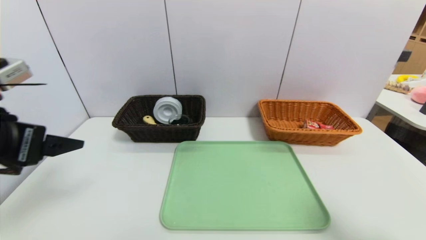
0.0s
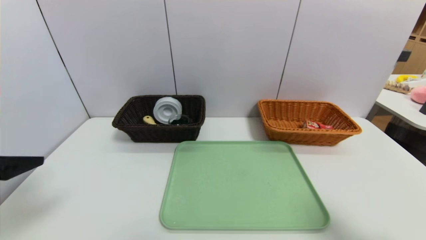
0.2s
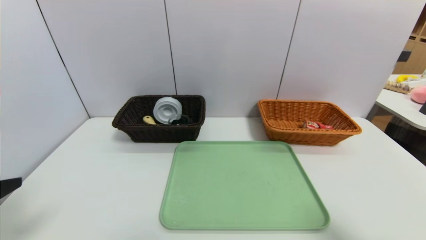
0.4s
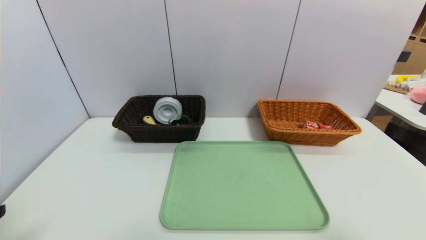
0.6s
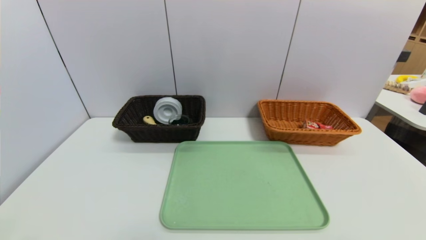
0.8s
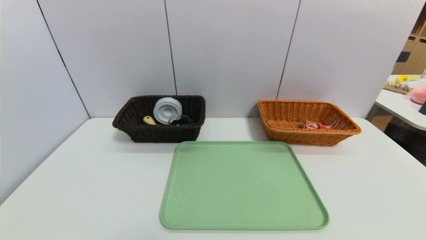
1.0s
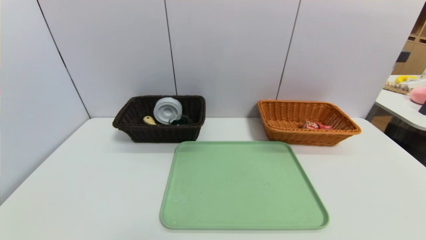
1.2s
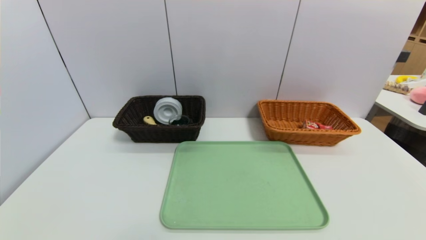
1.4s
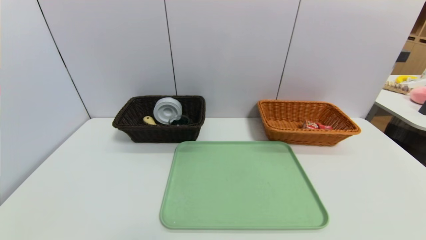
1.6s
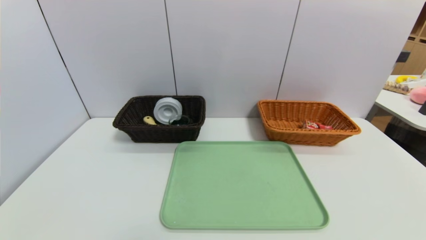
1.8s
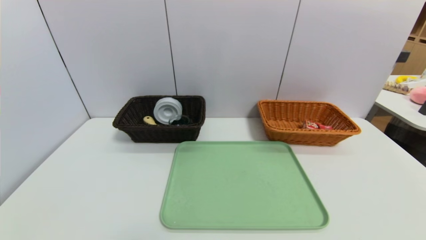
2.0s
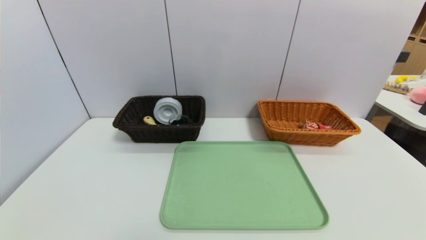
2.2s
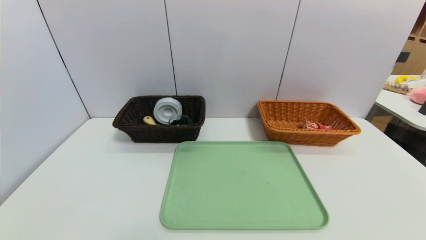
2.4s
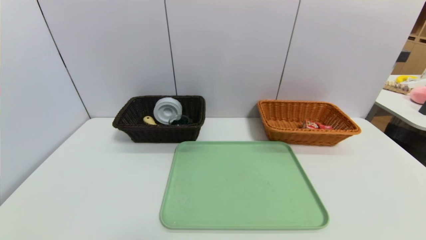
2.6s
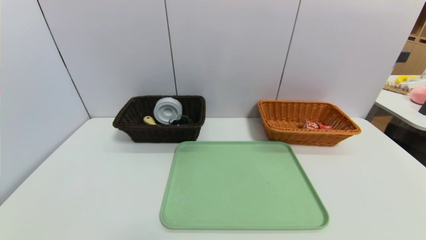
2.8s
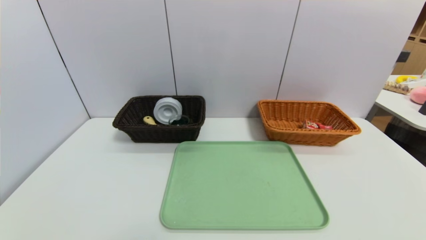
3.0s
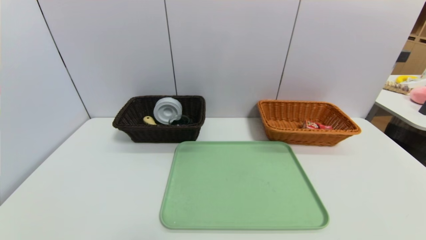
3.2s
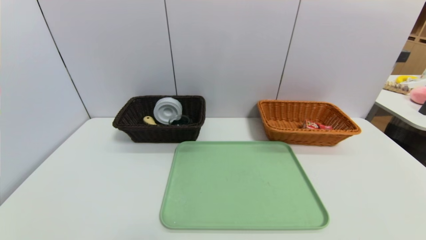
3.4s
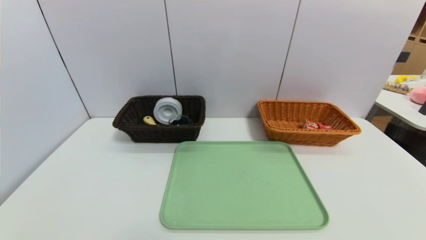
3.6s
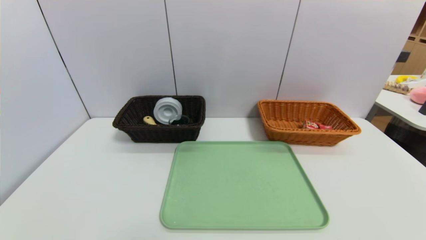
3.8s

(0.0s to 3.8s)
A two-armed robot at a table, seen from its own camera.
Task of the whole recording: place the food in the right basket with the right gripper, and place the non food items in the left basket with the left gripper.
0.0s - 1.2s: The two grippers go about 20 cm backward and downward.
